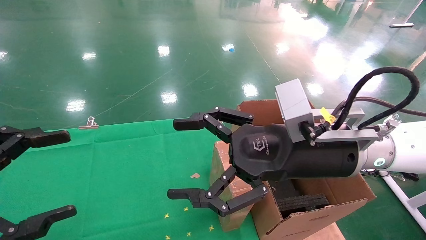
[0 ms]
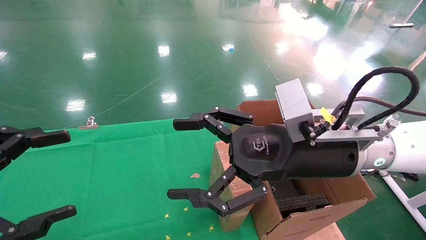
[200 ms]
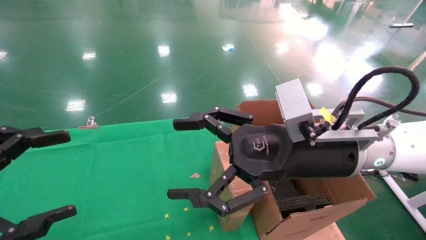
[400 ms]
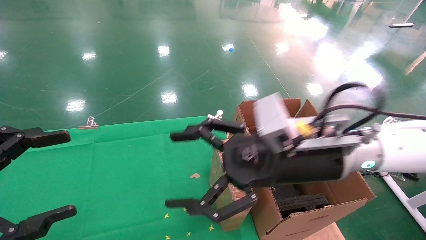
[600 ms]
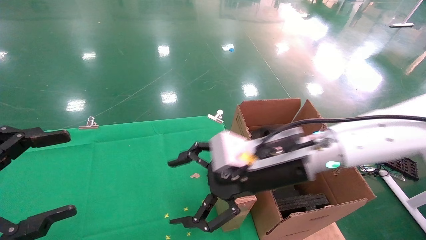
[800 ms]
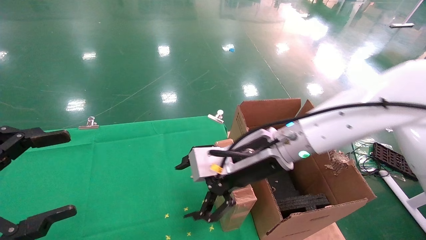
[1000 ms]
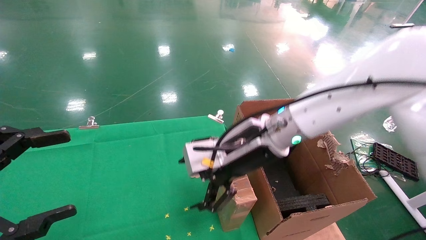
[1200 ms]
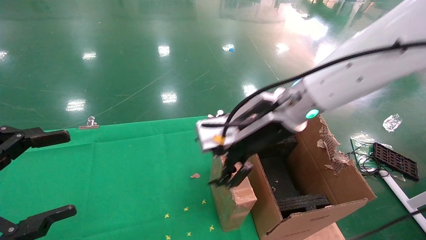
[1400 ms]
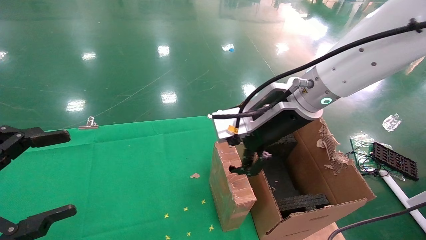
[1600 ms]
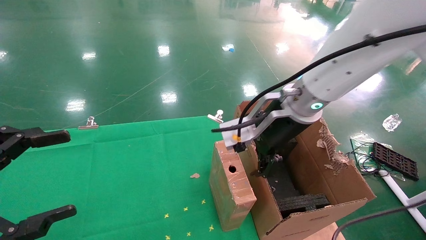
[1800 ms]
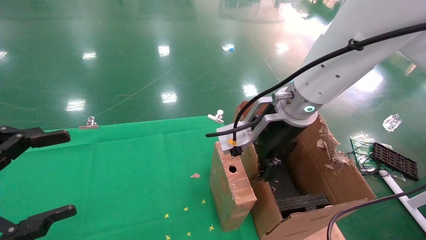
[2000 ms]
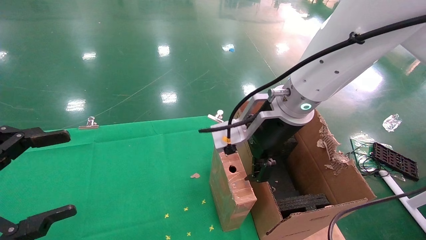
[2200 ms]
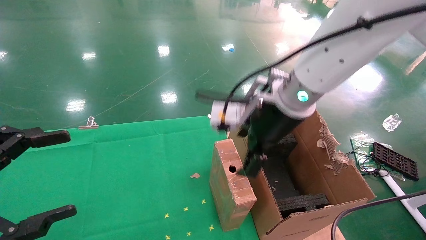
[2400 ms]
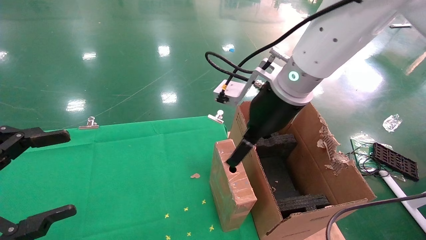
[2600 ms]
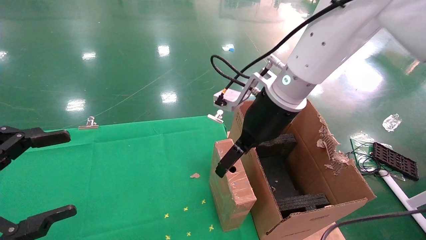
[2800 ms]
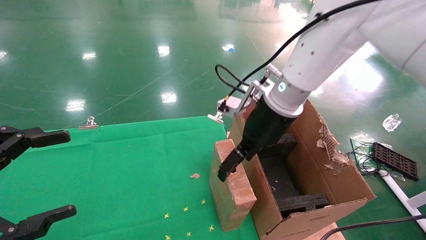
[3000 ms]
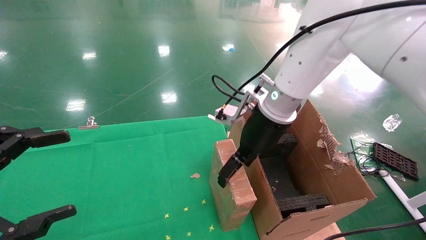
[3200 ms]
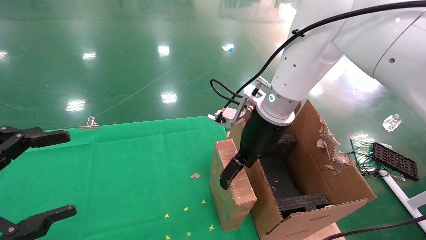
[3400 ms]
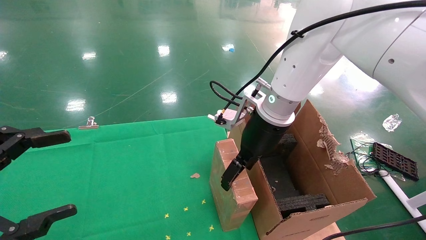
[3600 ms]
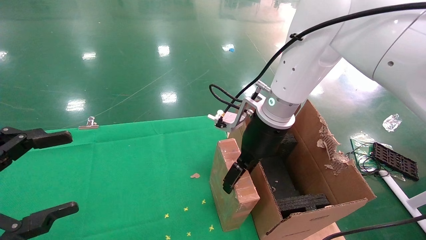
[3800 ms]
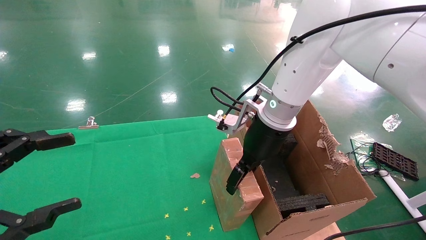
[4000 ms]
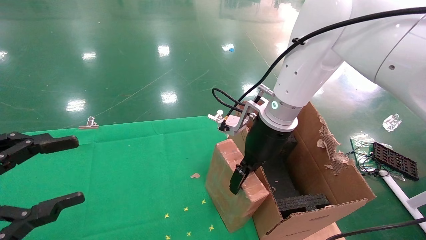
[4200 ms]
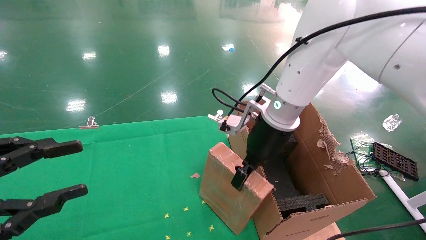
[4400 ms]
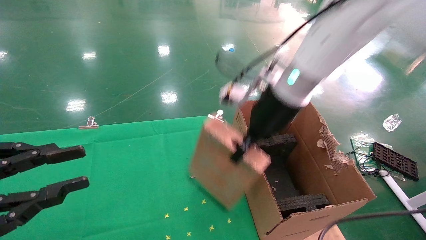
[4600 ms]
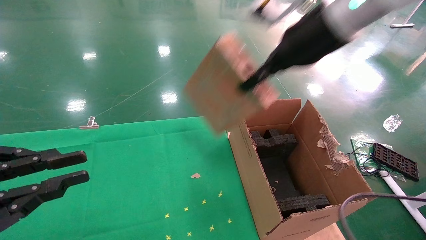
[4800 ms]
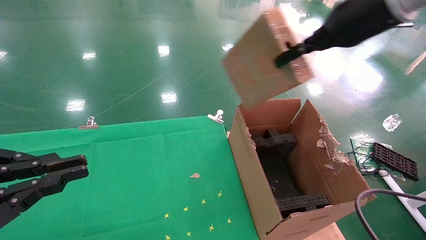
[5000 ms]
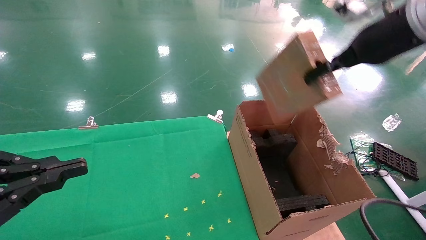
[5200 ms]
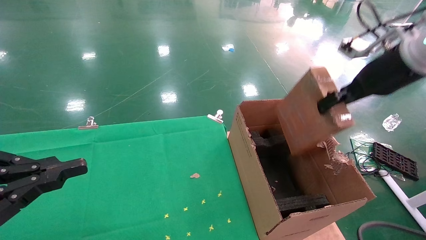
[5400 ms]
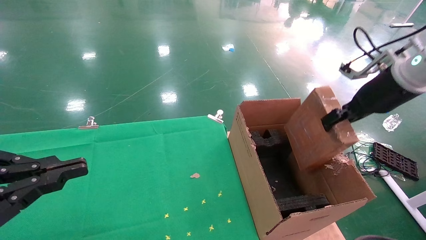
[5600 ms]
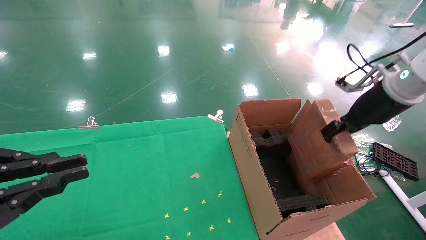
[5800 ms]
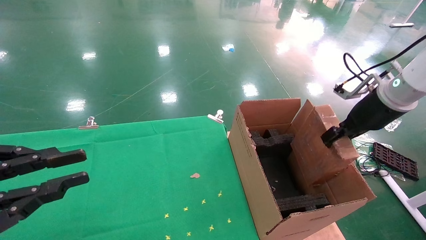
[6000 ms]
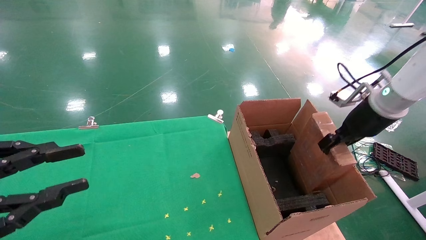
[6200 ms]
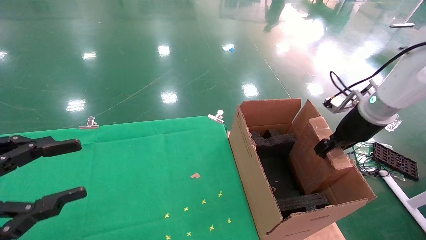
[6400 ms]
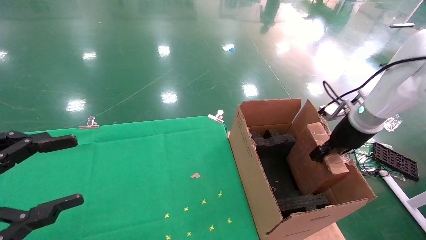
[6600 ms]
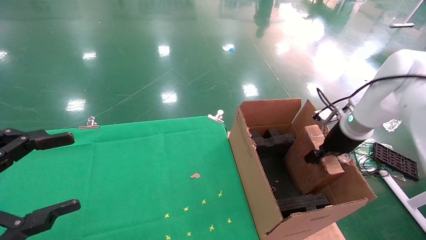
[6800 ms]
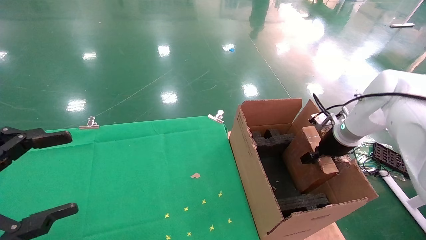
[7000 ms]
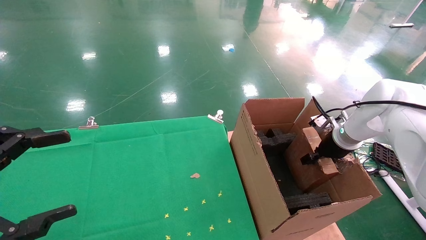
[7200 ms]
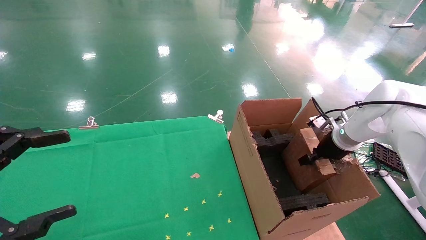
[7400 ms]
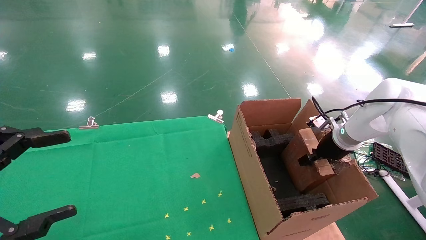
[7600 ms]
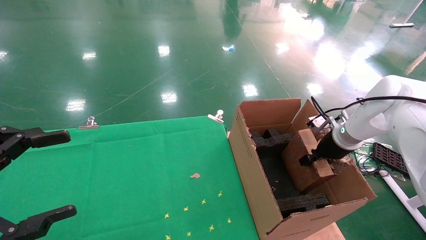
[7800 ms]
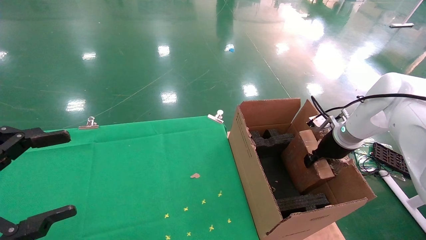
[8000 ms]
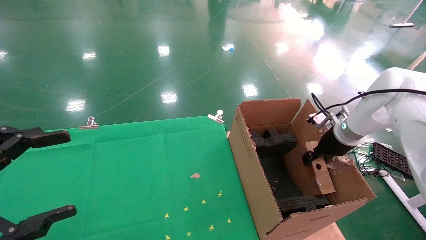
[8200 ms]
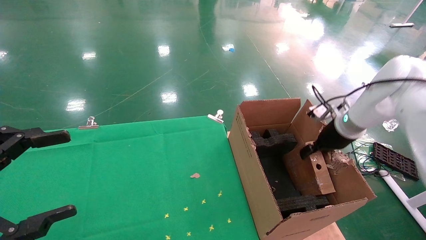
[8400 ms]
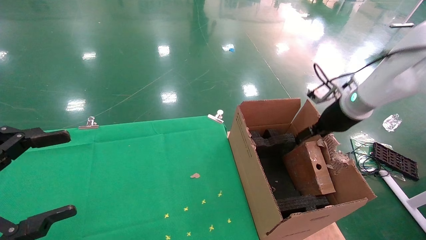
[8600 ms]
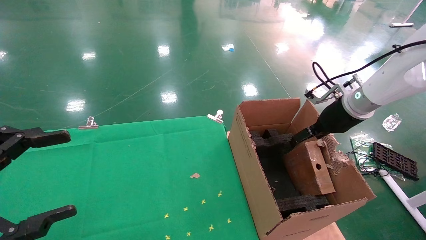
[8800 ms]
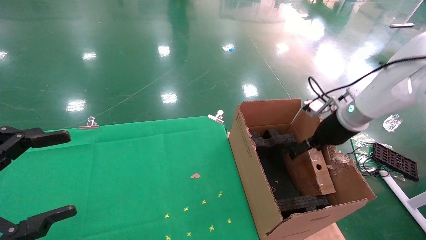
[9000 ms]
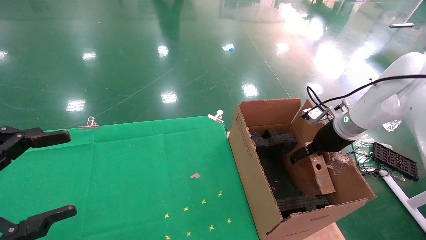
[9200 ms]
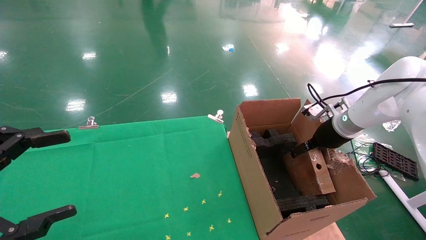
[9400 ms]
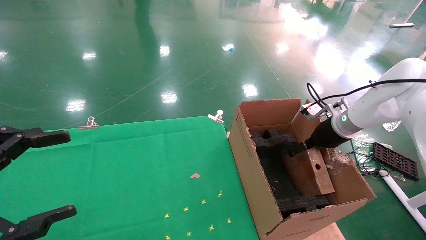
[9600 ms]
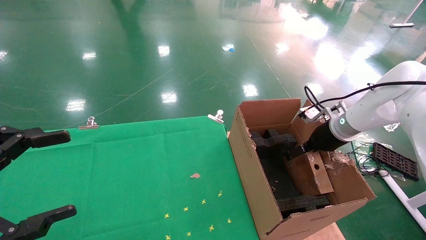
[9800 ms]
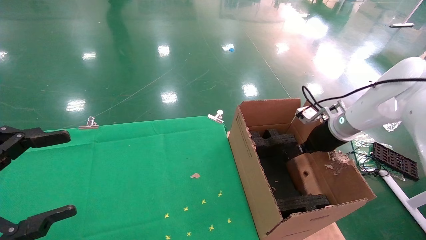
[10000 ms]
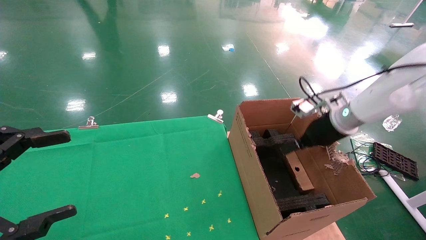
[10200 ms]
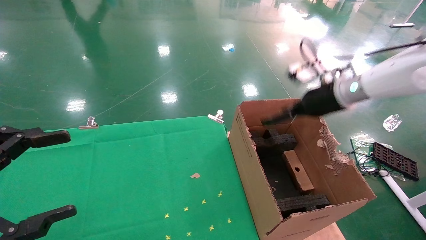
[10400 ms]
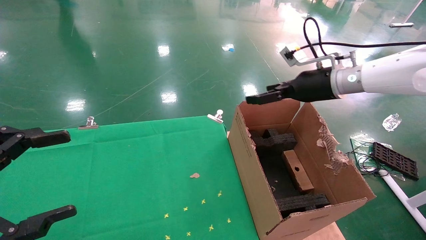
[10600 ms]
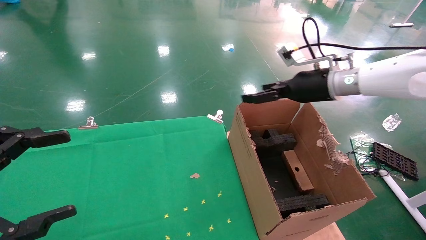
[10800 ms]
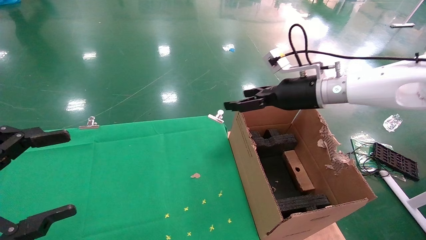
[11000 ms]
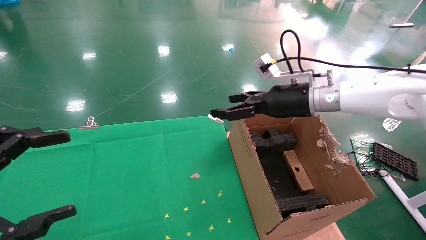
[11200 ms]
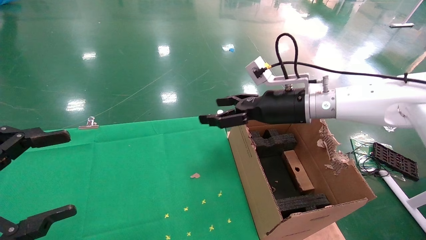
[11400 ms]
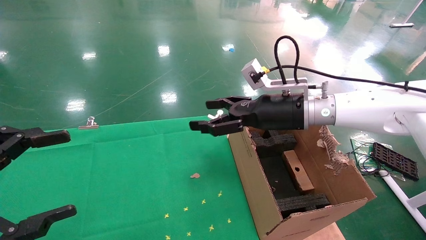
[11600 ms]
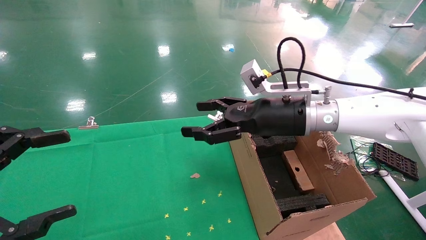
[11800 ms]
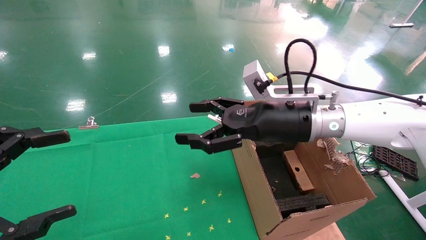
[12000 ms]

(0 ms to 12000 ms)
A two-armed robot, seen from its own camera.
Task of the whole recording: using a robotic arm to pick up a cardboard box and palace it the carton.
Step, 600 ms - 4400 ms: Pick up the mouse and the power cord paper box.
Step, 4600 ms - 8400 ms: Place the mouse and the power cord paper box into the container.
0 ms - 1600 ms: The right gripper travels forward by some 10 cm.
3000 ms - 4400 ms: The left gripper closes up; the right gripper closes up.
4400 ms - 6000 ms: The right gripper shifts about 25 cm to the right, while the left gripper closes.
6000 ms - 7600 ms: The right gripper travels downward and forward by some 15 cm. The left gripper opens.
7600 ms - 9000 ms: The right gripper goes some 5 cm upward, and opens its fingers.
9000 ms - 10400 ms: The right gripper goes roughly 5 cm upward.
10400 ms - 12000 ms: The right gripper moves to the left and backward, some 15 cm.

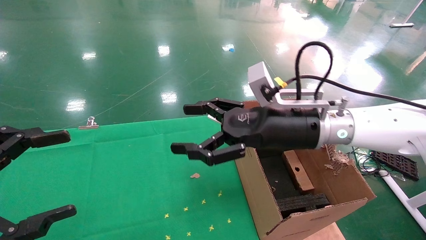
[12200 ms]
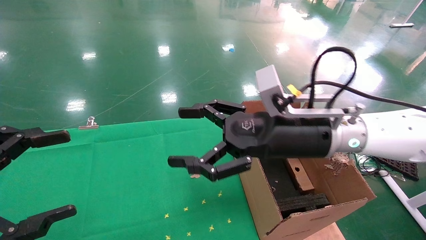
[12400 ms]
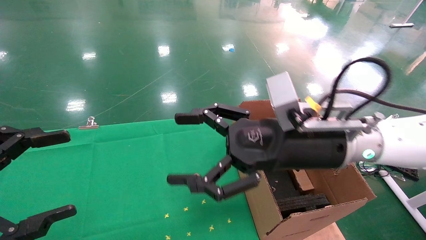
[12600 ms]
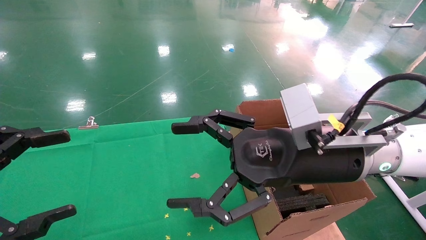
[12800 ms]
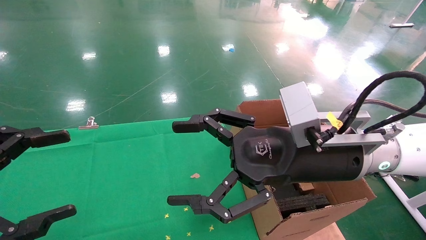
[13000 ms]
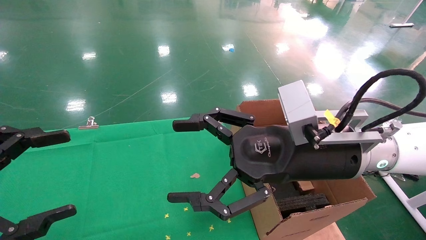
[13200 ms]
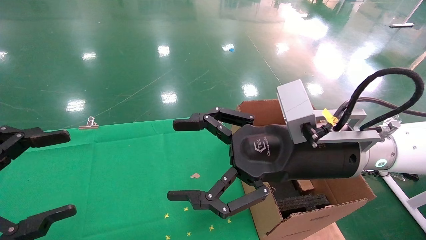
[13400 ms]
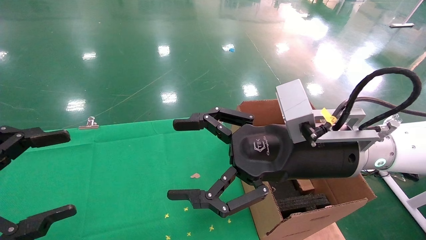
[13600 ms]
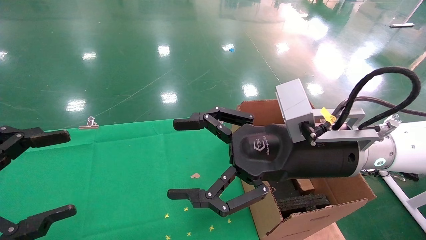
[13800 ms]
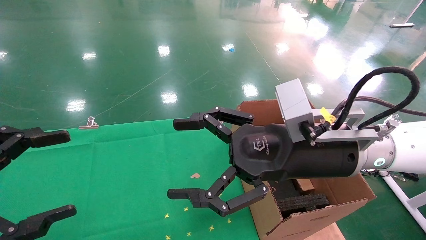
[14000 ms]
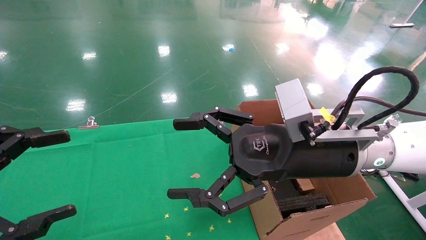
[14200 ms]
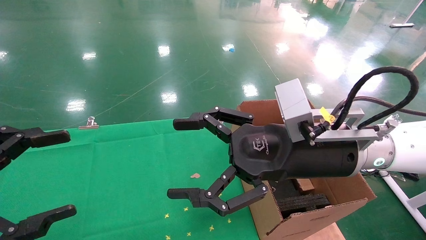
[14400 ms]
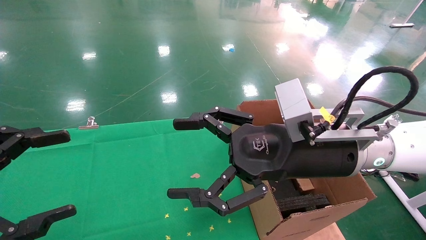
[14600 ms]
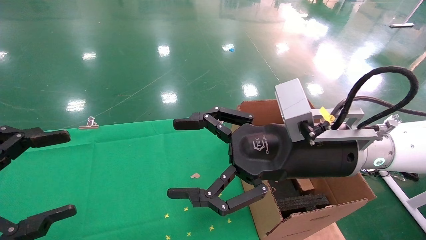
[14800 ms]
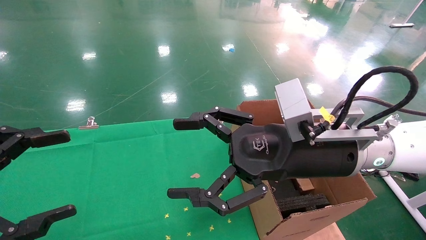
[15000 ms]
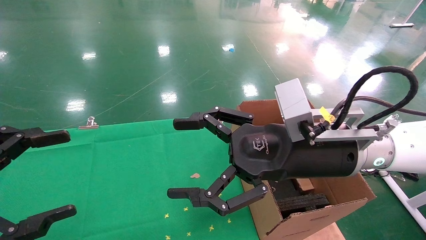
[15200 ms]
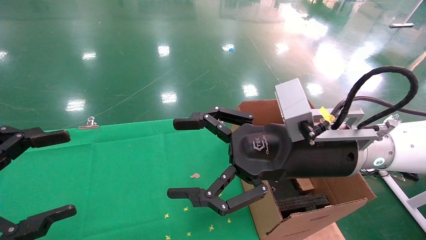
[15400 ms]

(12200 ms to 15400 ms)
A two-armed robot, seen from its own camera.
Task of the whole recording: using a robotic arm to pick up a cardboard box and palace it the carton.
12200 ms - 13800 ms: The right gripper heads backward, covering roughly 5 cm.
13800 ms - 15400 ms: The two grippers keep their place.
